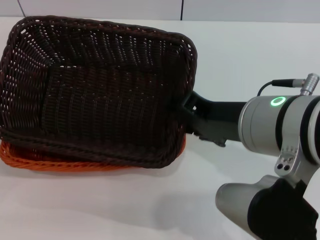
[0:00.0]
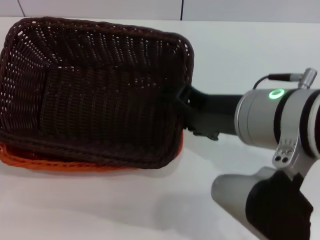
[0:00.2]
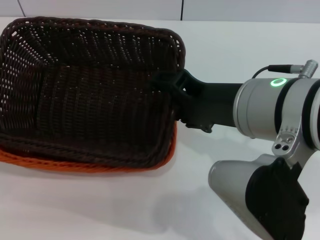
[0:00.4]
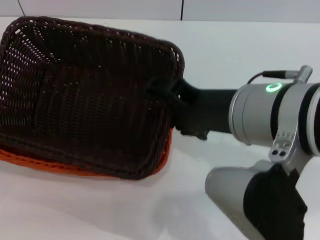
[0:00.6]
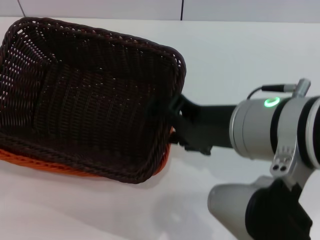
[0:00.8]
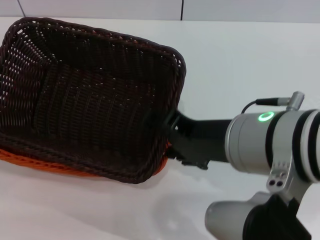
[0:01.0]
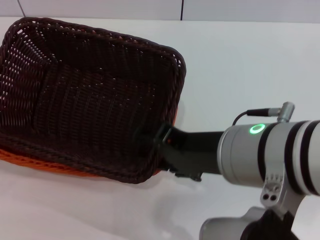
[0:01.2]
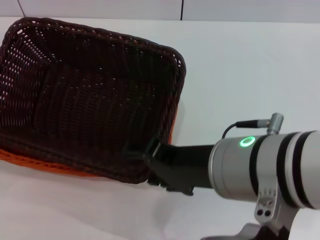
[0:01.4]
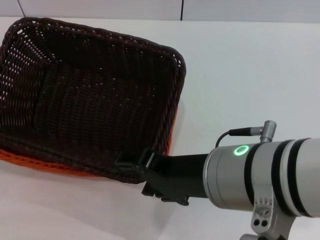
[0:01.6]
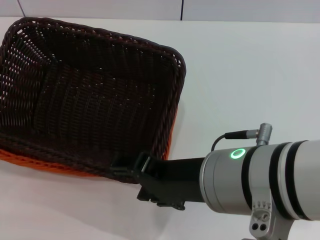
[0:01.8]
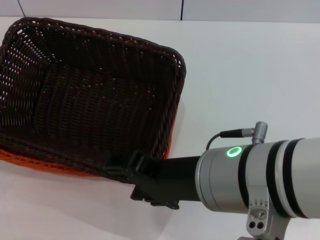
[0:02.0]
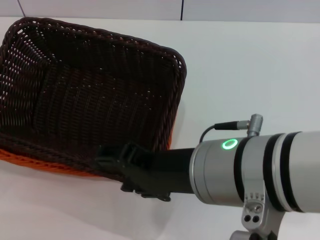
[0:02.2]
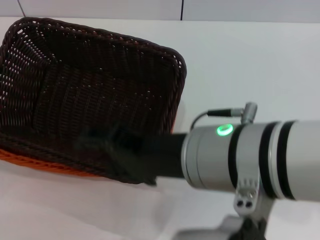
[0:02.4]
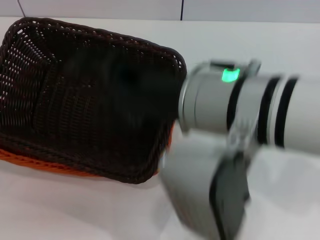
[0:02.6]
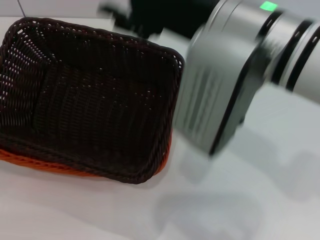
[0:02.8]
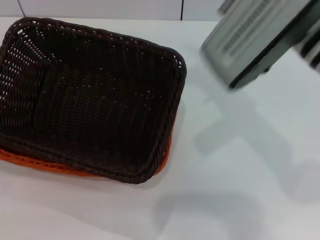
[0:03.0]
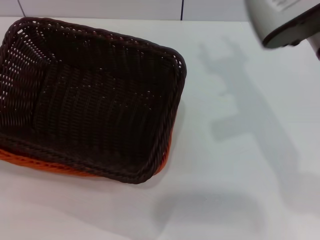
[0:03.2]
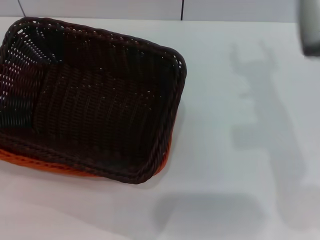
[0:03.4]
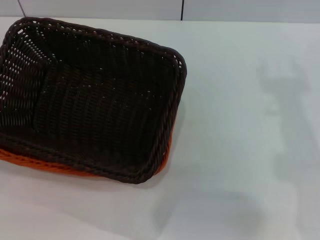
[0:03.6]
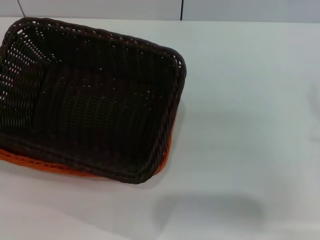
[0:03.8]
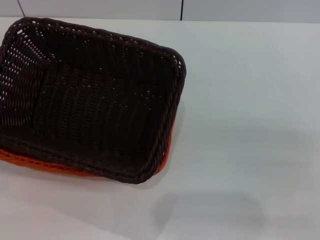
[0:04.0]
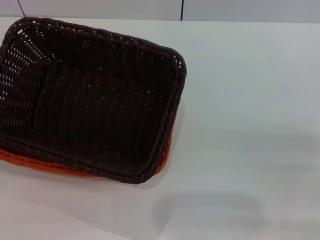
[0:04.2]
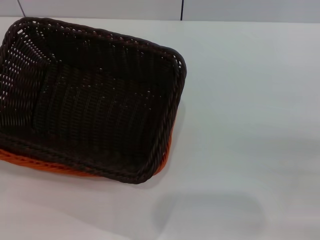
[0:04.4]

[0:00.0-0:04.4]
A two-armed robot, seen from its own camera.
0:00.0 to 0:01.4: The right gripper opens up.
0:01.4 to 0:03.0: The right gripper travels forward by some 10 cm.
0:03.0 to 0:04.4: The right gripper moves to the right, downward and backward, about 30 cm.
